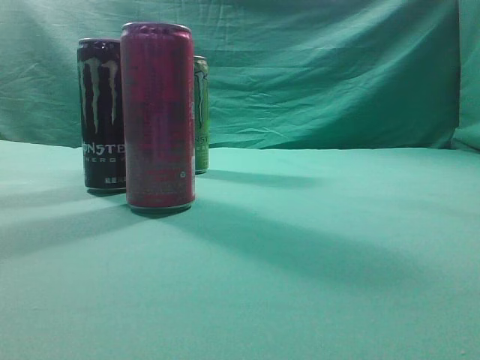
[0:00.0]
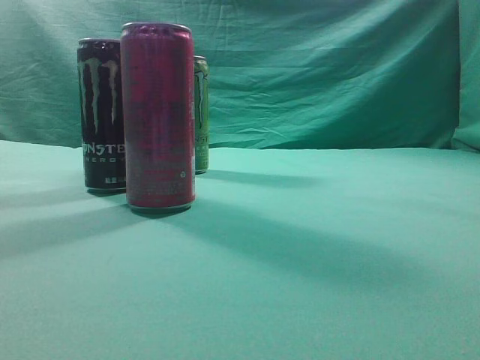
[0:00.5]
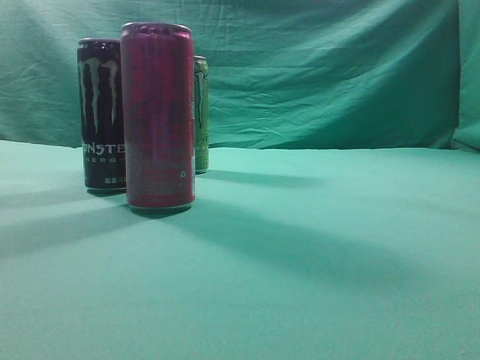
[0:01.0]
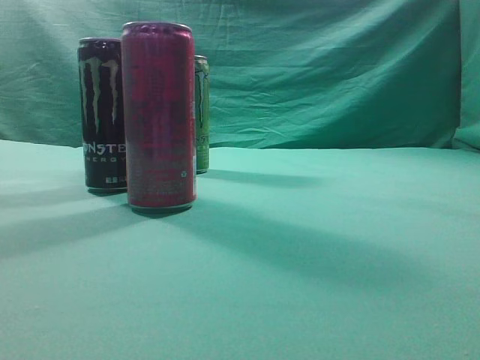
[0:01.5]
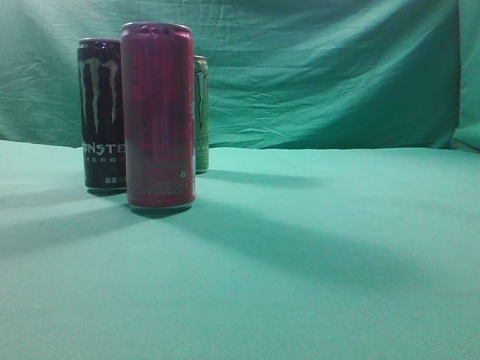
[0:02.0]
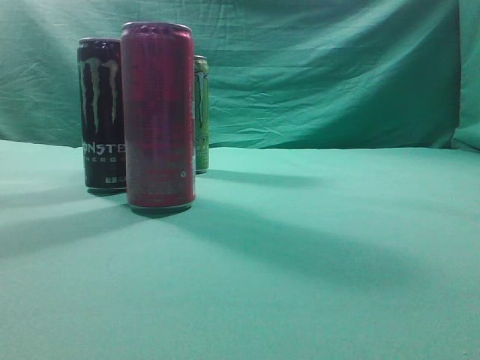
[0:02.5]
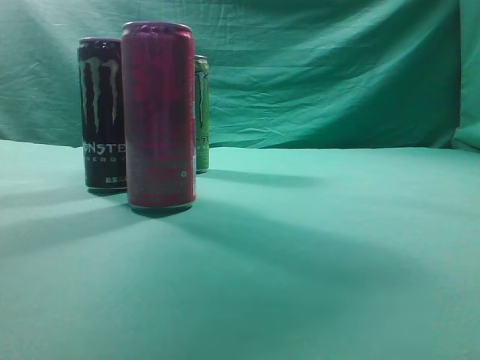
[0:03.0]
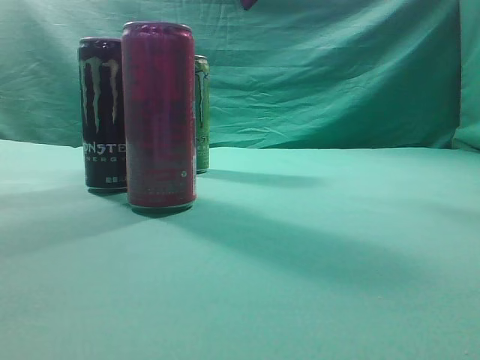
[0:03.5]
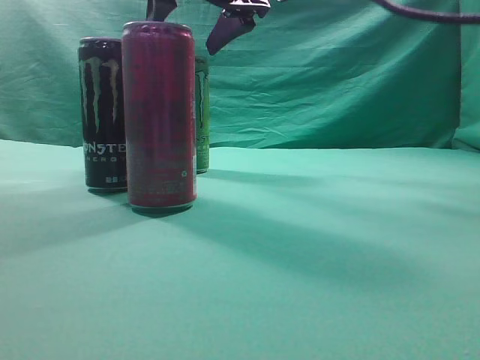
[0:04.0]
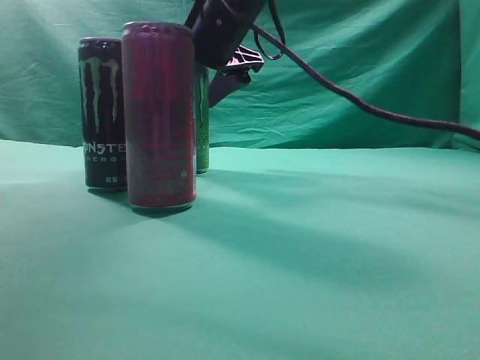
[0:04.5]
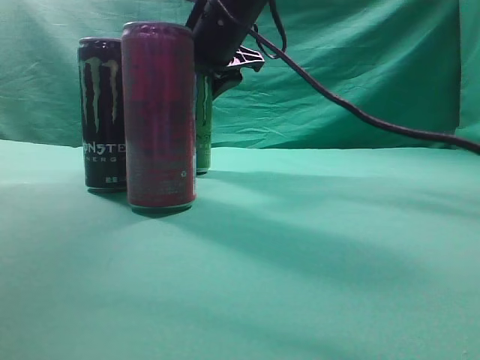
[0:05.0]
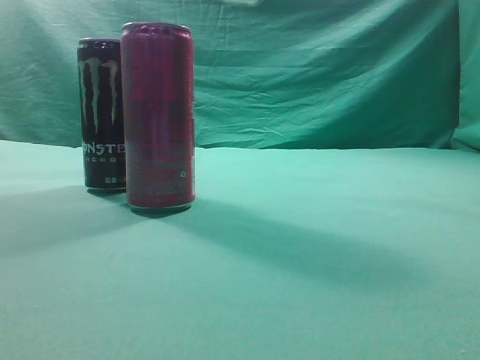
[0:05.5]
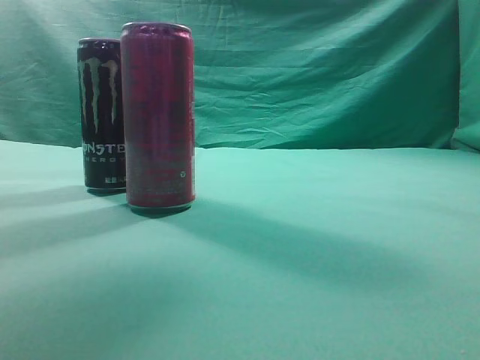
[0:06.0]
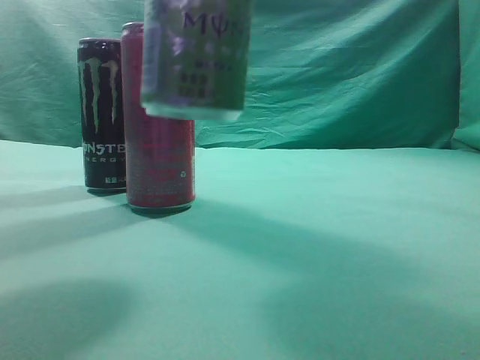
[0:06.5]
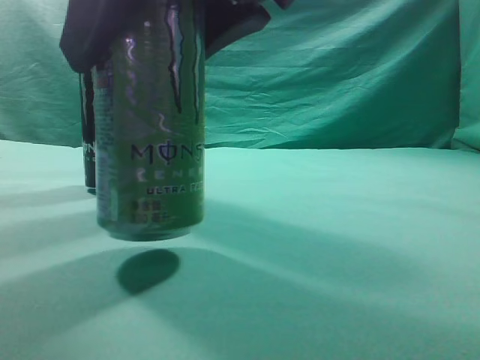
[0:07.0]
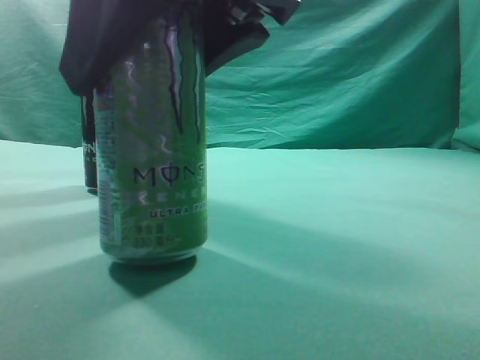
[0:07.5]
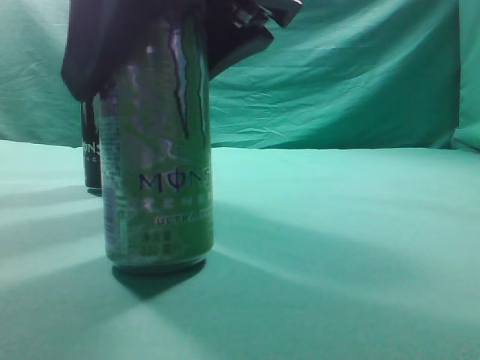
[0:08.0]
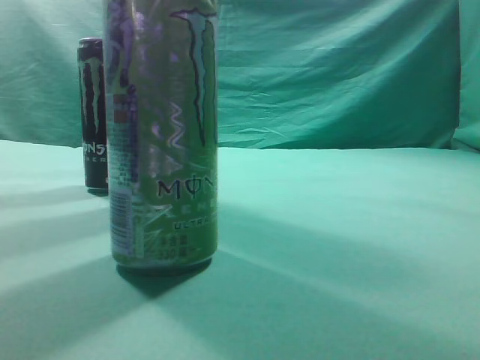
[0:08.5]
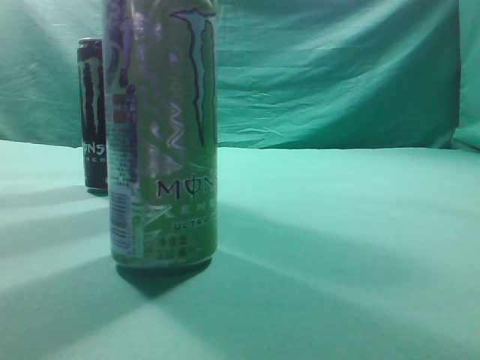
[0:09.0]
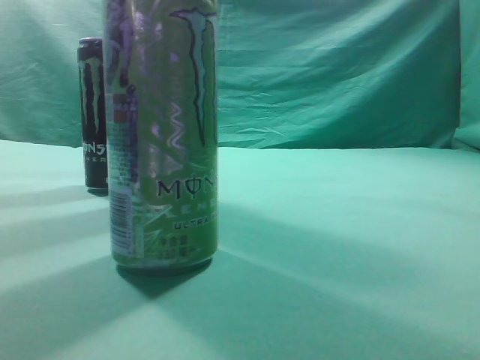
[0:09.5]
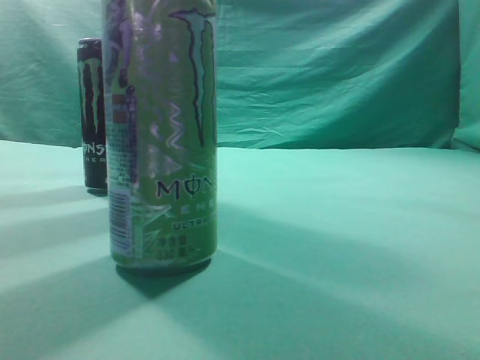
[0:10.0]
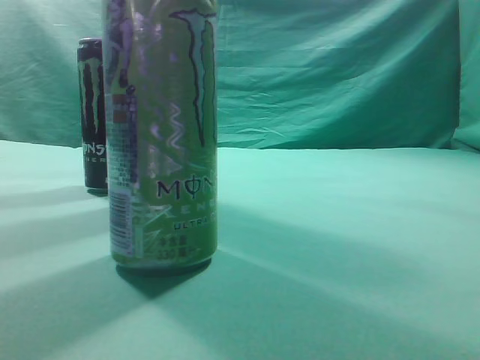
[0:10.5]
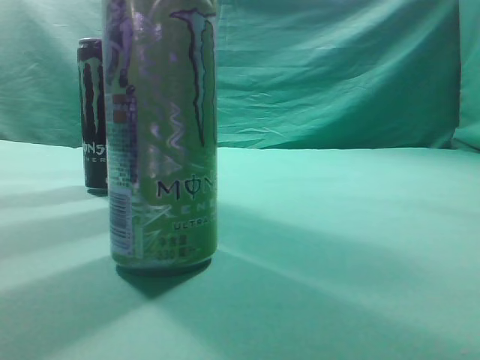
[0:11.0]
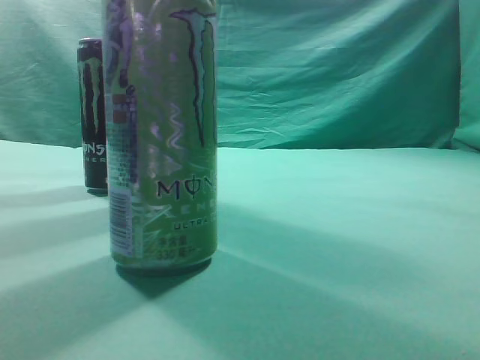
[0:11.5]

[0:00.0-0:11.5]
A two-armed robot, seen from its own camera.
Task of the whole recording: move one drink among three beverages.
Step, 0:00.0 to 0:04.5: Grasp the beverage bottle placed at the back of the desk.
Step, 0:05.0 to 0:08.0: Place the beverage bottle to the front of the table.
0:02.0 to 0:04.0: The right gripper moves forward and to the left, roughly 40 cm, and opens its fingers.
0:04.0 to 0:06.0: The right gripper goes about 25 cm backward, to the right and upward.
0:06.0 to 0:07.5: The right gripper travels downward, to the left and backward by some 20 cm.
0:07.5 to 0:09.5: The right gripper is displaced upward and to the right by approximately 25 cm, and closes up.
